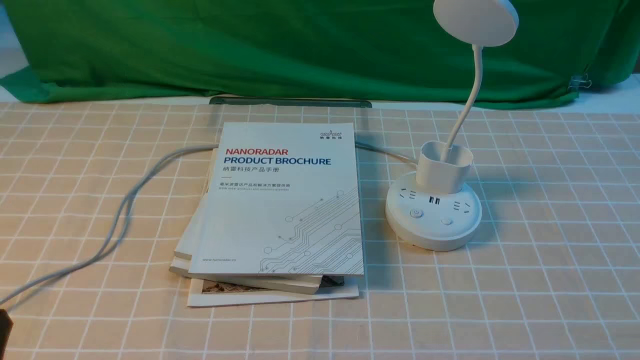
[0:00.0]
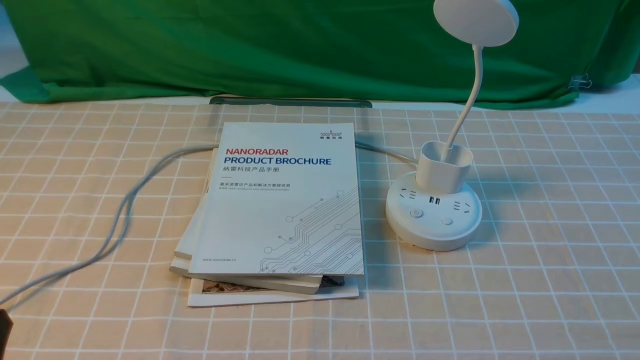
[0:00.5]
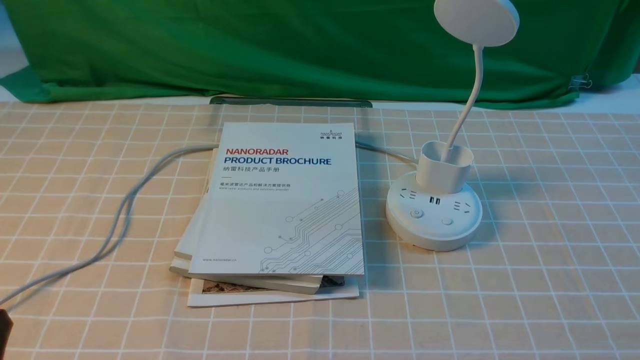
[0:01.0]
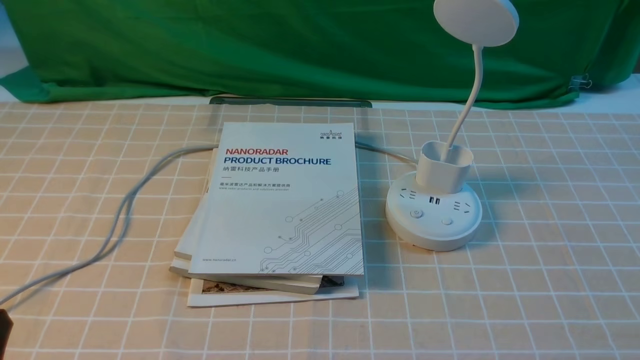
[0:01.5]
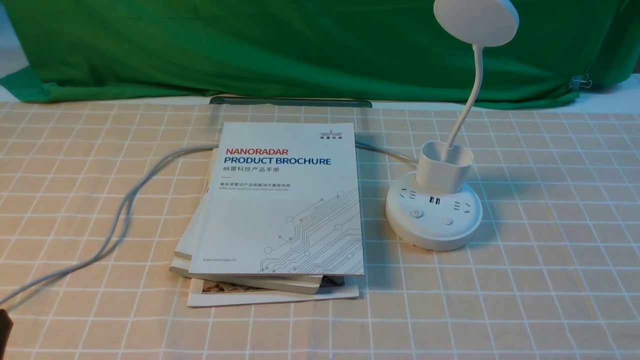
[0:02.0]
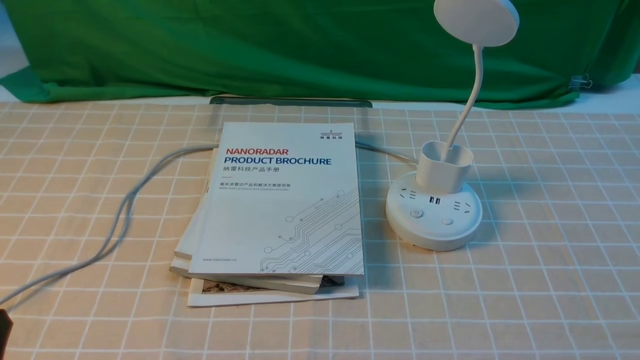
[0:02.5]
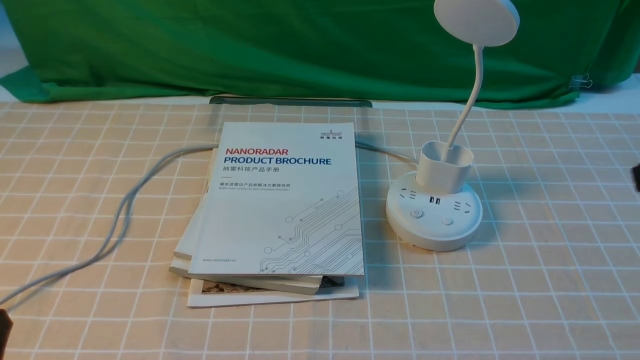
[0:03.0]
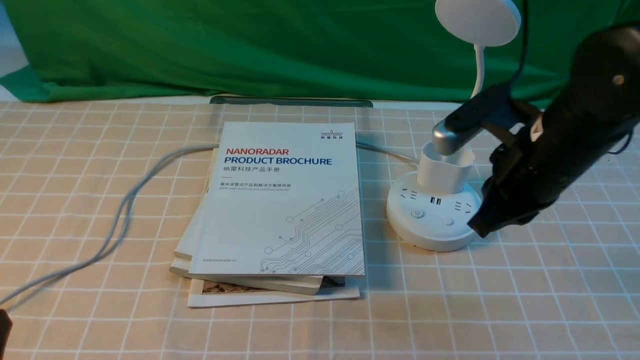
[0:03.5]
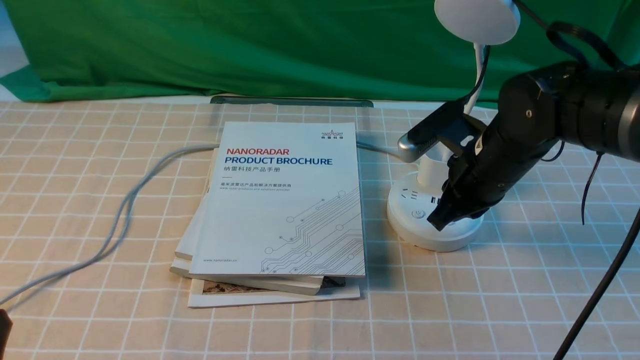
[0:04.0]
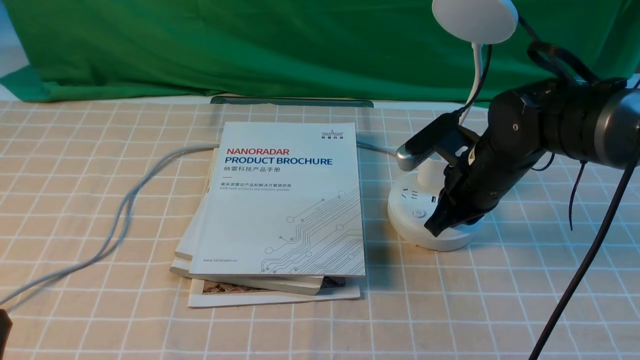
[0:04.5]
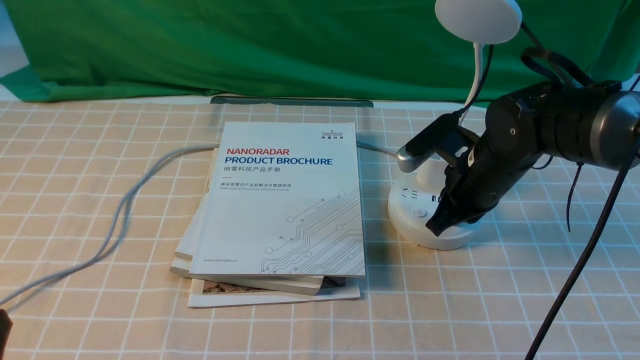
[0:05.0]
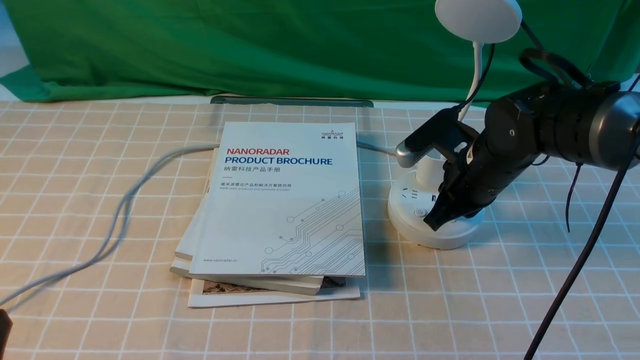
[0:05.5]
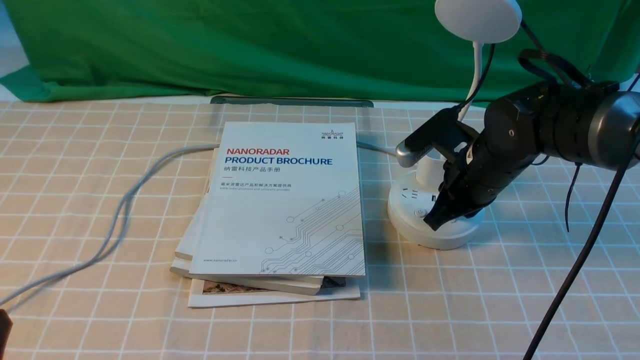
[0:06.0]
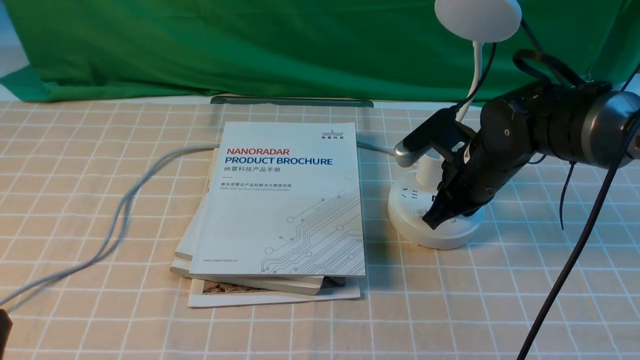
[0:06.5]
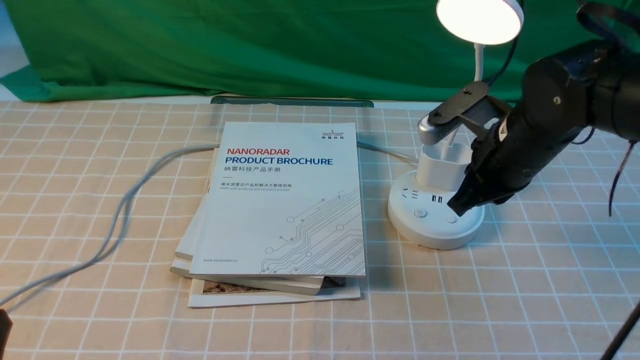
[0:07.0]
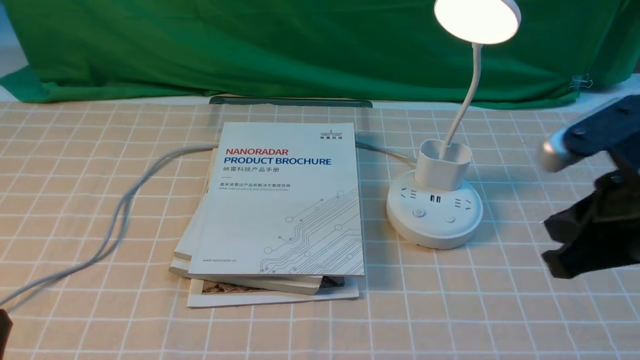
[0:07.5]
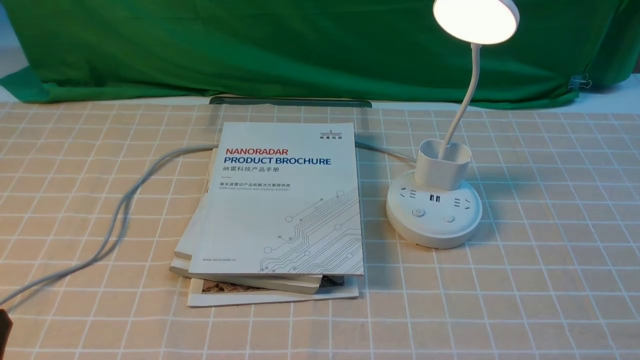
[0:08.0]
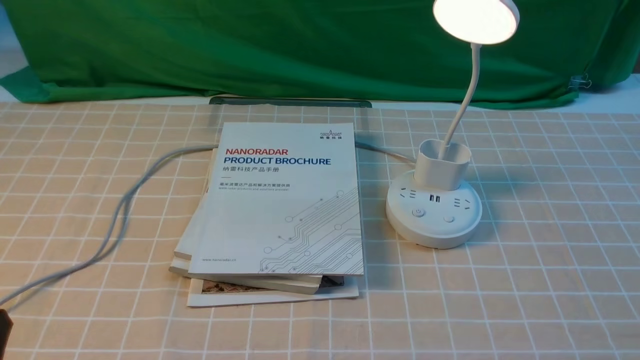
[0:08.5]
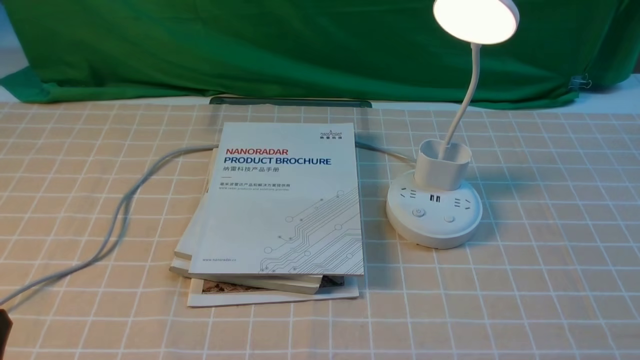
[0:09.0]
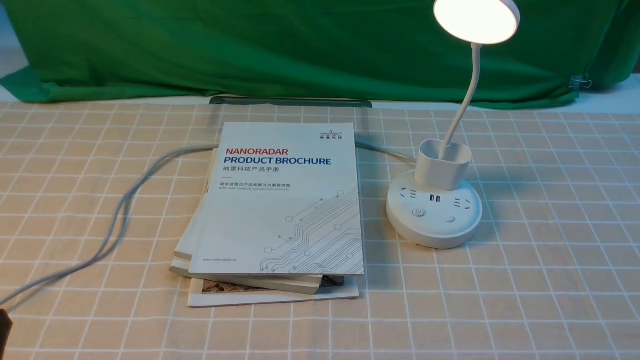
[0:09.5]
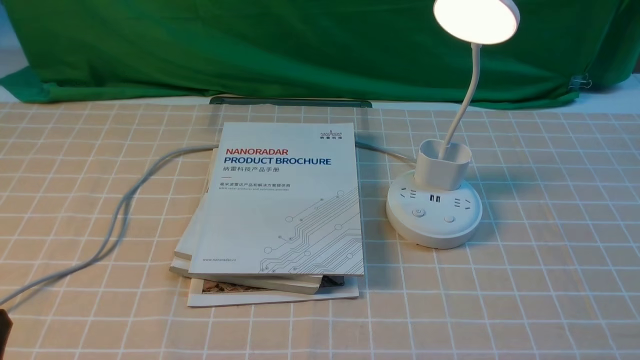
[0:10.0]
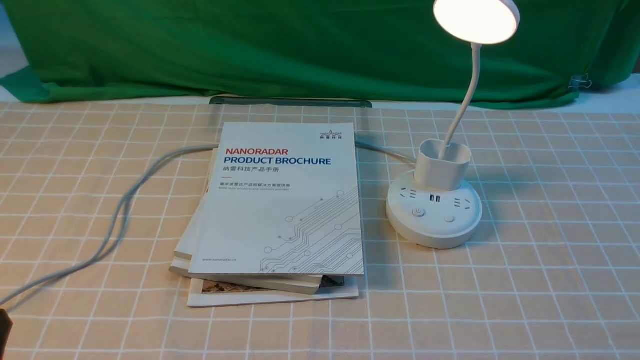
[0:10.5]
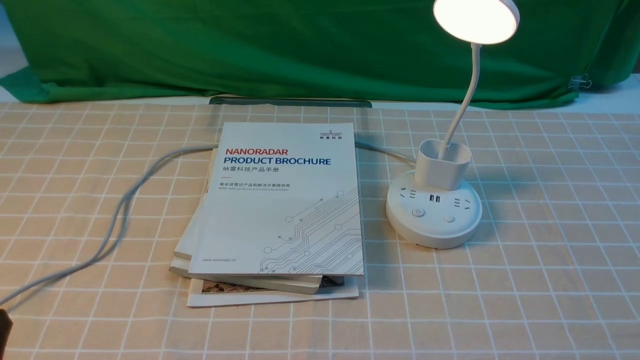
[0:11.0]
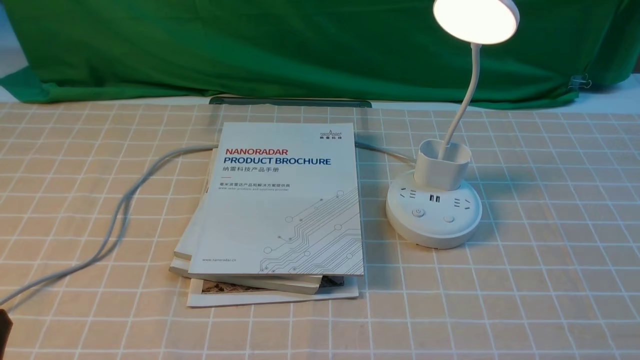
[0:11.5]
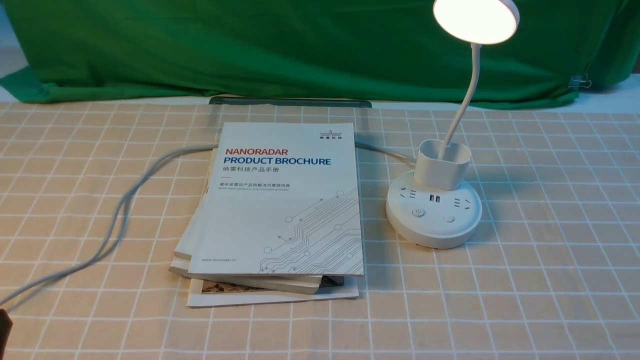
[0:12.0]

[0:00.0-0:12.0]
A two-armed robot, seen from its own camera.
Step, 0:00.0 to 0:07.0: use the right arm to press the button switch on the lamp holder.
0:02.0 to 0:04.0: The right gripper shifts some 35 cm forward and to the left, and closes.
0:04.0 to 0:06.0: The grippers move only a little.
0:06.0 to 0:08.0: The right gripper heads backward, upward and to the right, covering roughly 35 cm.
0:10.0 to 0:12.0: The two grippers keep their place.
